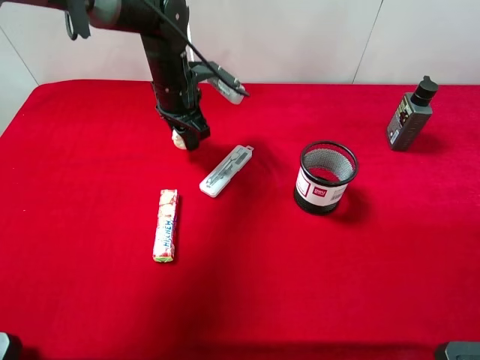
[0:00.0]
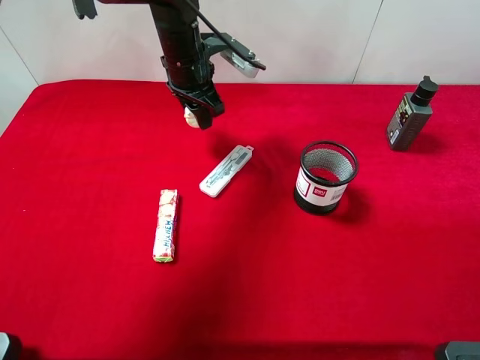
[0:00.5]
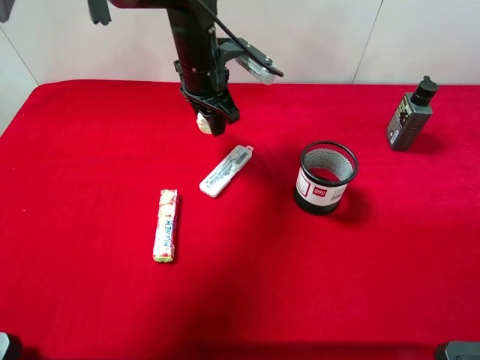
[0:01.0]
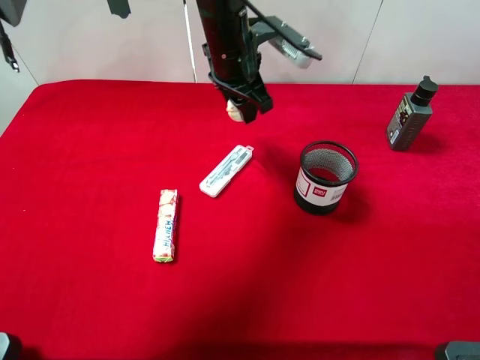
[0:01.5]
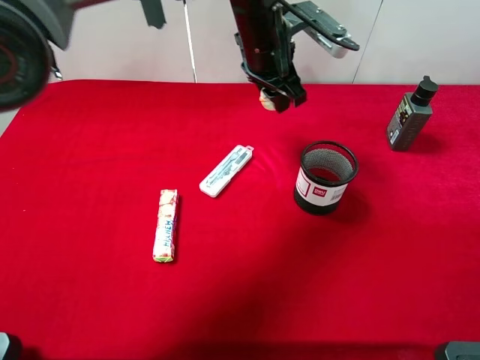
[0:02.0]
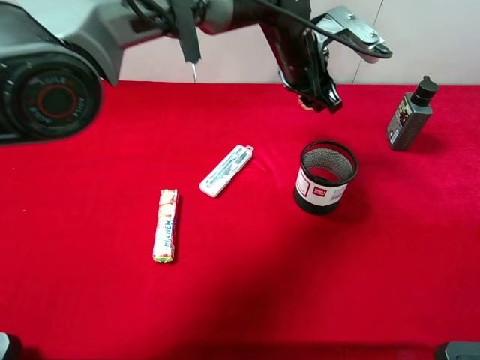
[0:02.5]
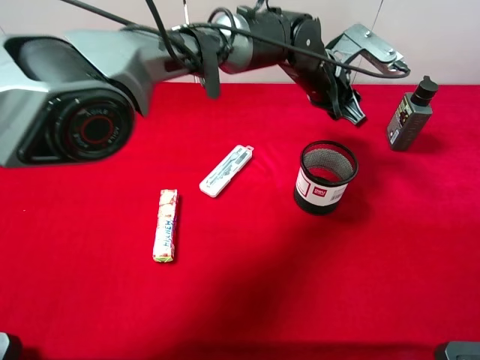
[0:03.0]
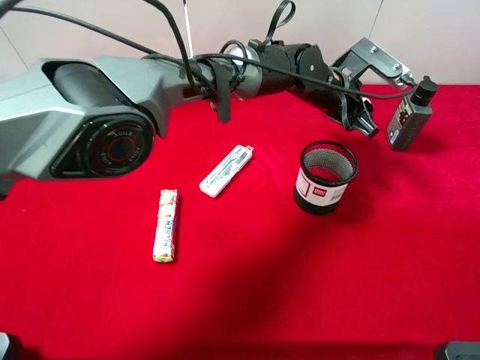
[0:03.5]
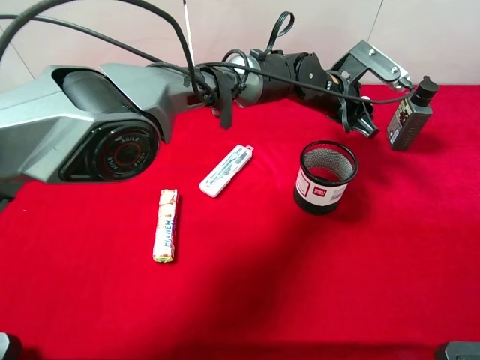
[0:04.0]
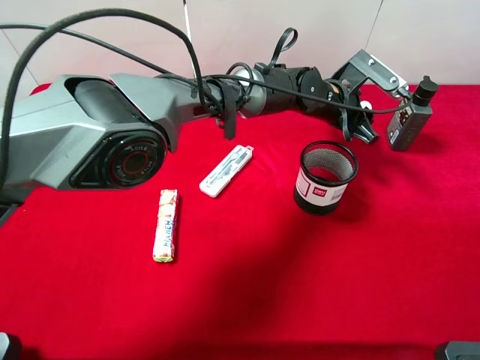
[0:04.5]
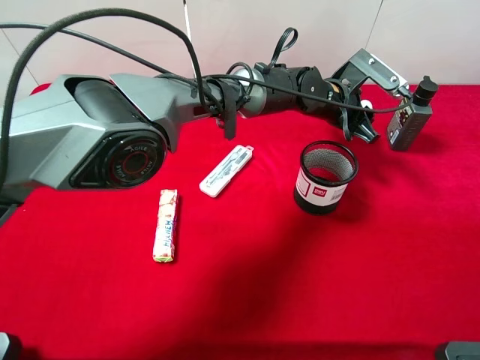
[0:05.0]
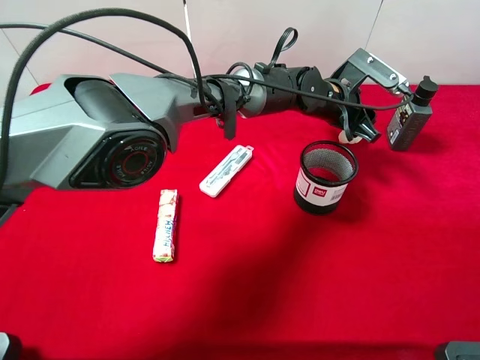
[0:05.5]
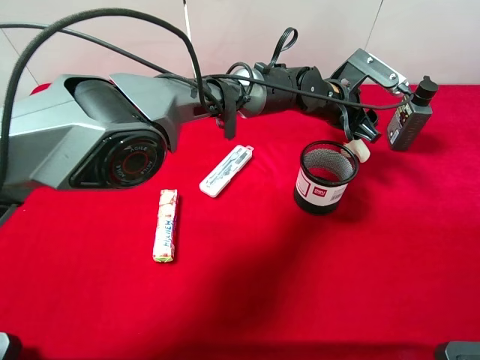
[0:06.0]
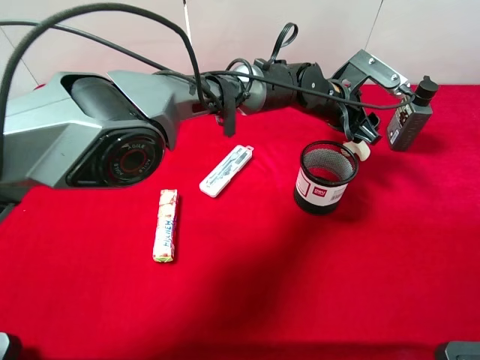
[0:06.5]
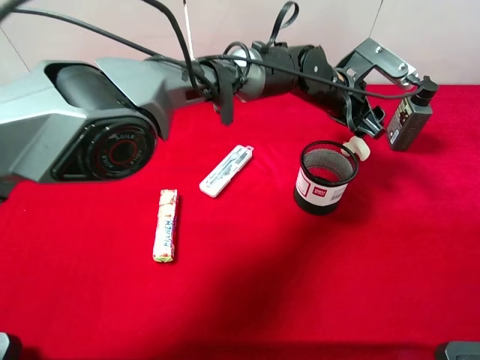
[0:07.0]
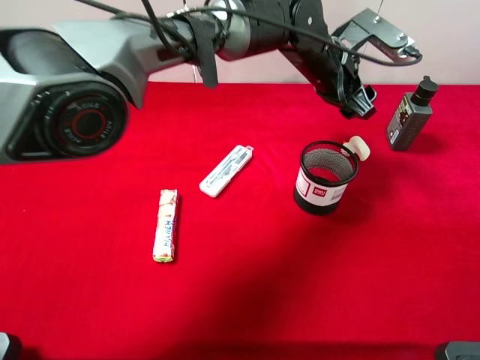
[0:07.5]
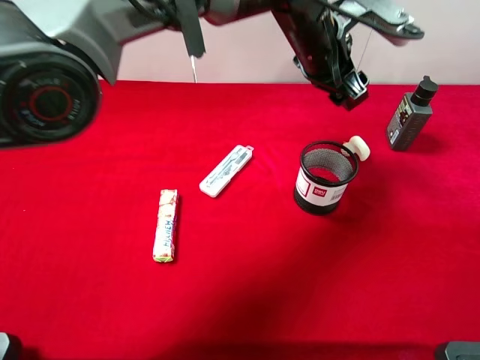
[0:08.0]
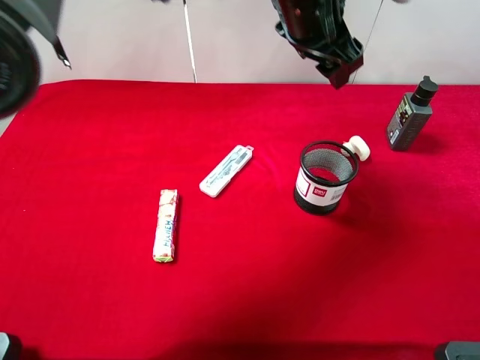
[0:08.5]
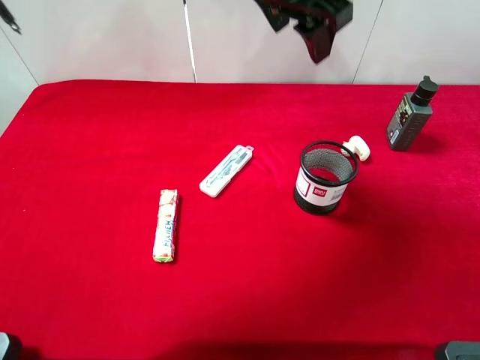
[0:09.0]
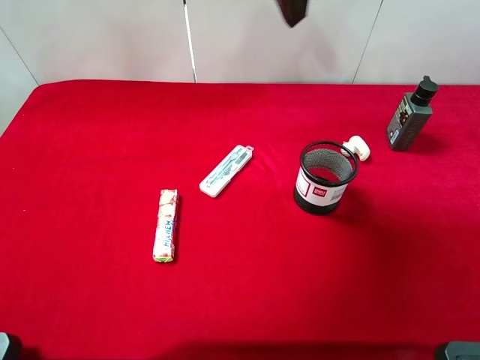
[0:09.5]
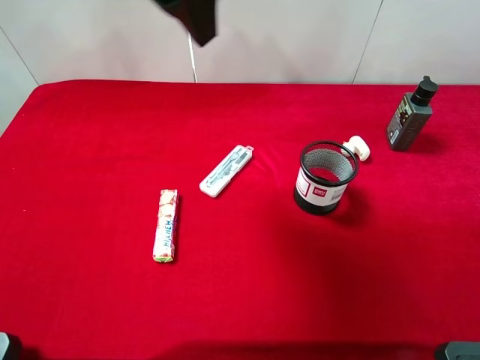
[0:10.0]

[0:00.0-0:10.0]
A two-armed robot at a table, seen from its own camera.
Task of the whole recording: the gripper move the object.
Step, 0:00.0 to 0:07.0: Place the white duck on the table with the left gripper.
0:00.0 to 0:02.0: The left gripper moves to the right and upward, roughly 15 cm.
0:02.0 to 0:04.0: The left gripper moves to the right and downward, some 15 cm.
0:04.0 to 0:06.0: The grippers stay close to where they were, moving slightly.
0:06.0 to 0:08.0: The left gripper is displaced upward by about 10 cm.
0:08.0 to 0:10.0: The left gripper moves to the left, upward and backward, approximately 30 cm.

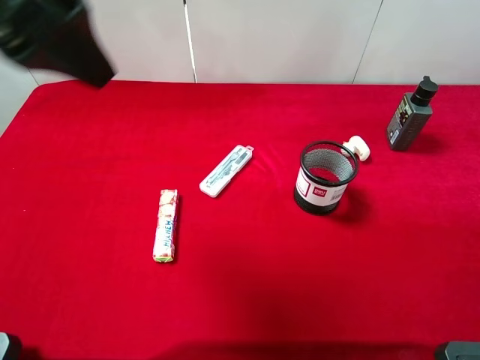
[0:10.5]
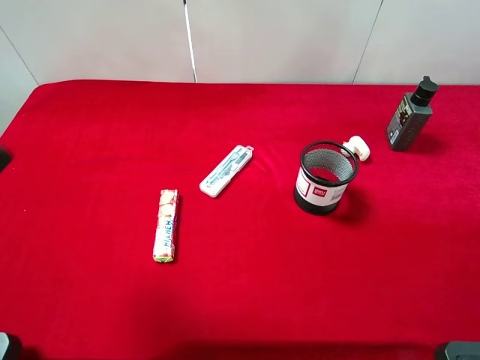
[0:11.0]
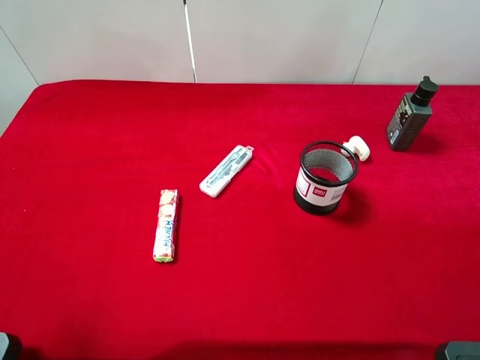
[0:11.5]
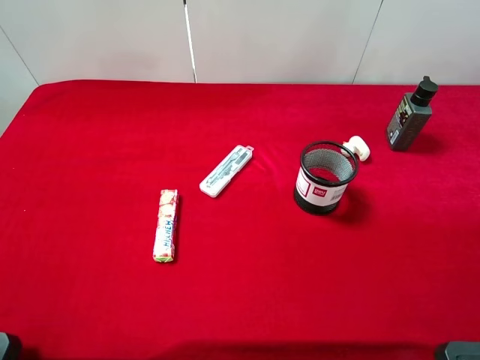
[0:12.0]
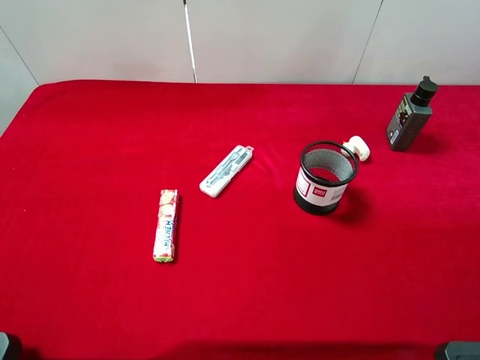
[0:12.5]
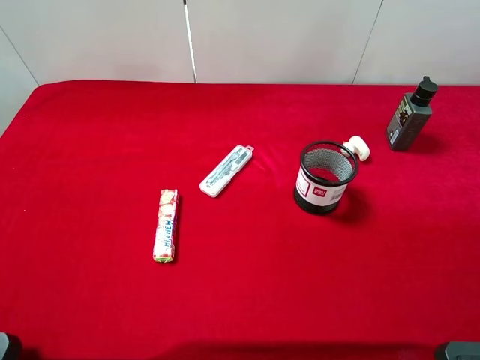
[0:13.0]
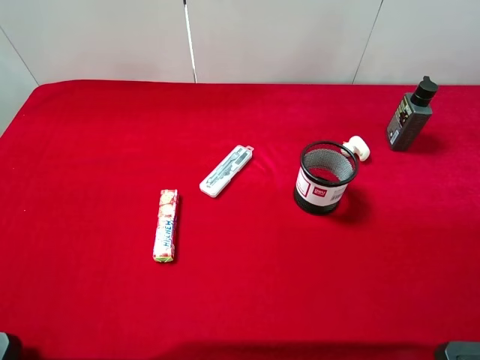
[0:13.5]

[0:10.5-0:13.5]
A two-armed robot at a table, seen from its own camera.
Task of the whole recording: the gripper move the object.
0:10.5 to 0:12.0: The left gripper is displaced to the left, backward and downward by roughly 20 cm.
